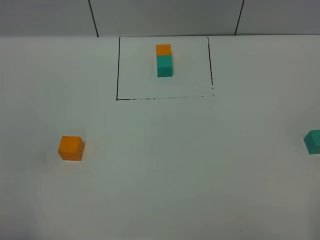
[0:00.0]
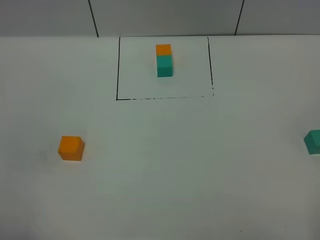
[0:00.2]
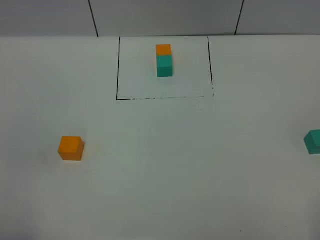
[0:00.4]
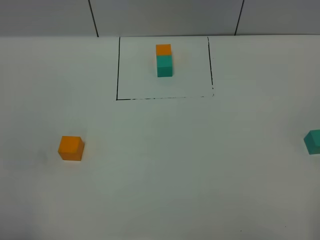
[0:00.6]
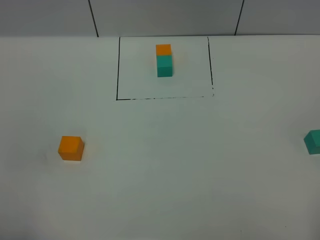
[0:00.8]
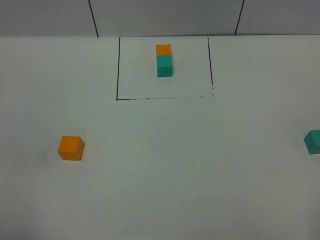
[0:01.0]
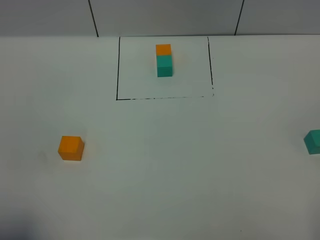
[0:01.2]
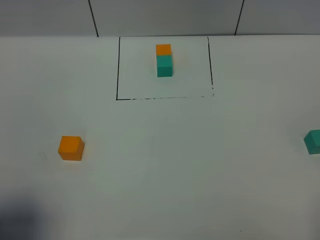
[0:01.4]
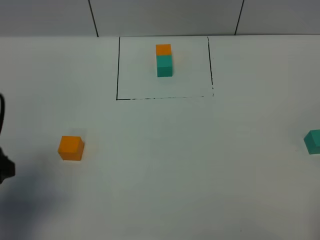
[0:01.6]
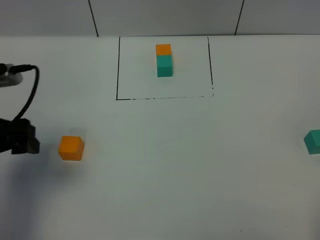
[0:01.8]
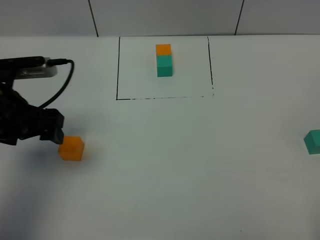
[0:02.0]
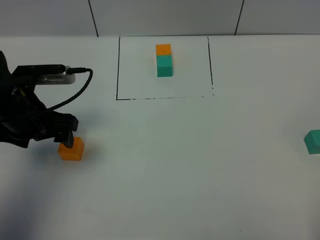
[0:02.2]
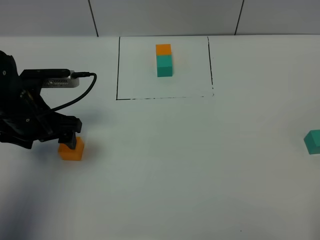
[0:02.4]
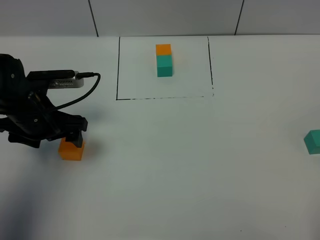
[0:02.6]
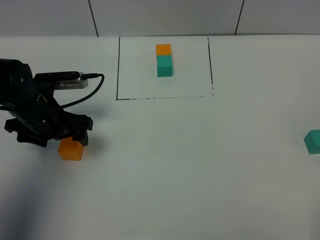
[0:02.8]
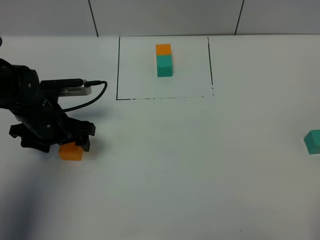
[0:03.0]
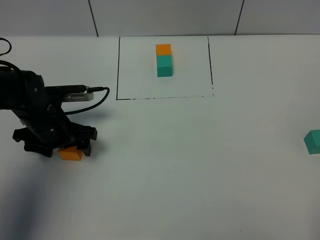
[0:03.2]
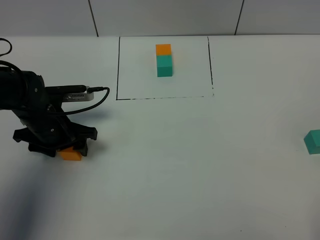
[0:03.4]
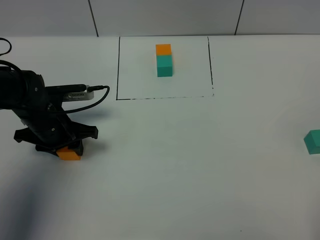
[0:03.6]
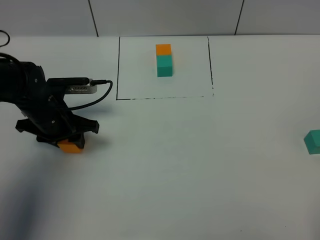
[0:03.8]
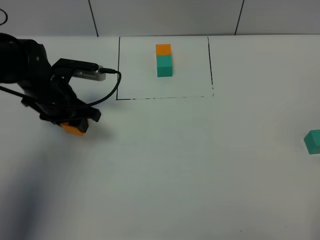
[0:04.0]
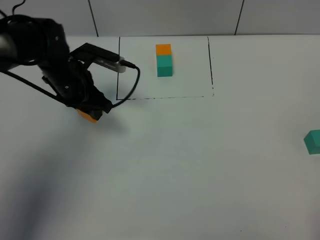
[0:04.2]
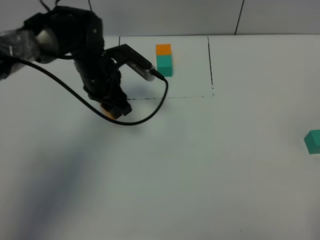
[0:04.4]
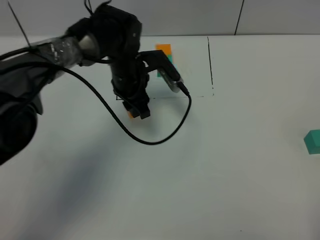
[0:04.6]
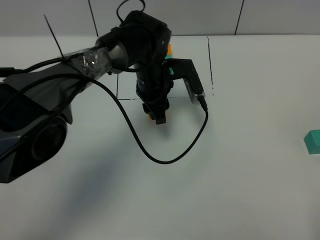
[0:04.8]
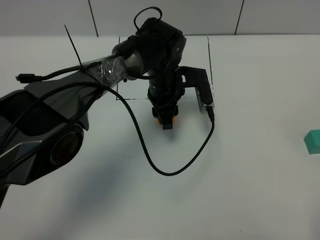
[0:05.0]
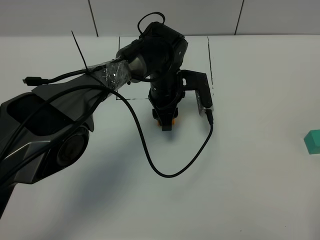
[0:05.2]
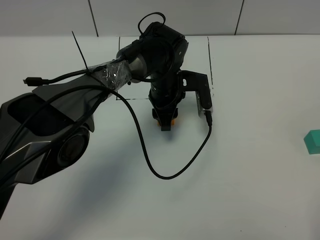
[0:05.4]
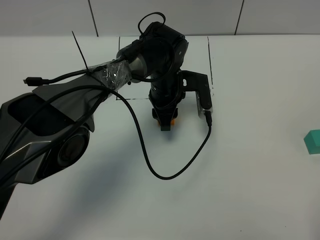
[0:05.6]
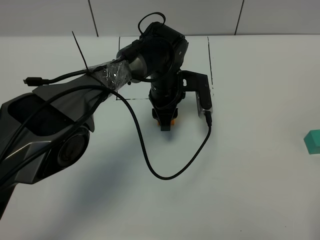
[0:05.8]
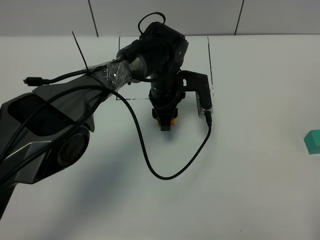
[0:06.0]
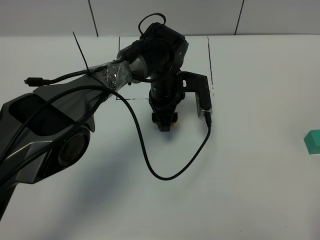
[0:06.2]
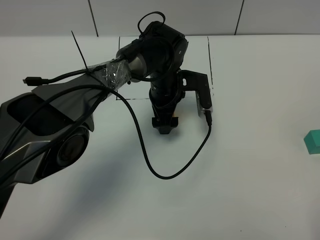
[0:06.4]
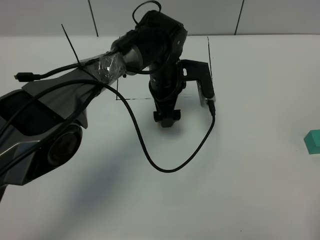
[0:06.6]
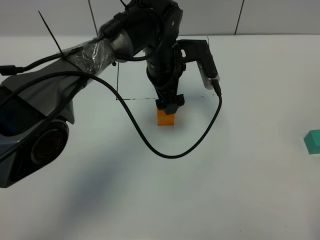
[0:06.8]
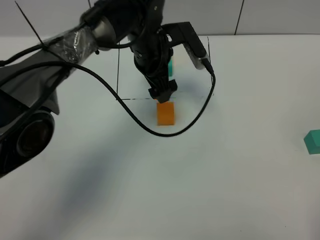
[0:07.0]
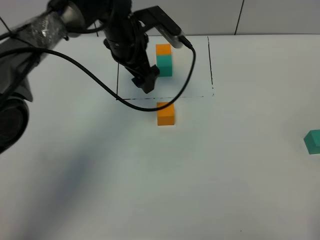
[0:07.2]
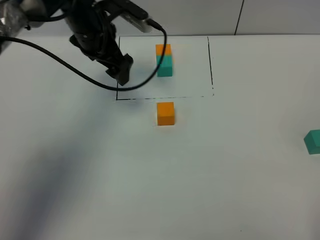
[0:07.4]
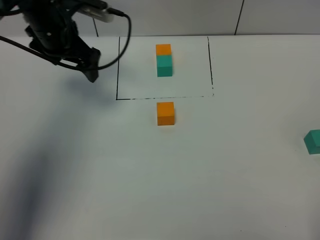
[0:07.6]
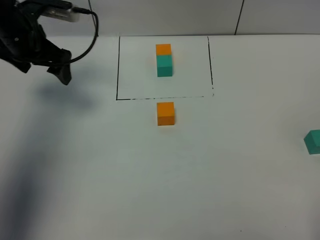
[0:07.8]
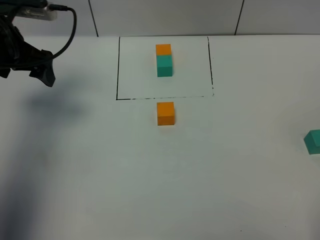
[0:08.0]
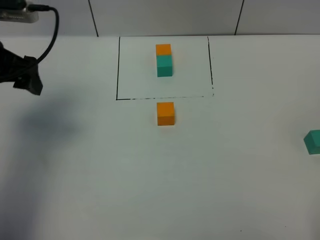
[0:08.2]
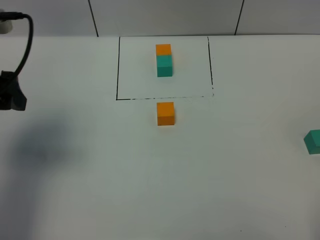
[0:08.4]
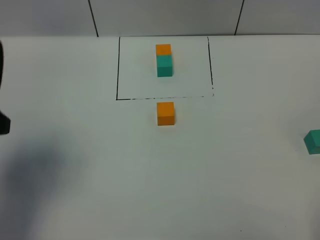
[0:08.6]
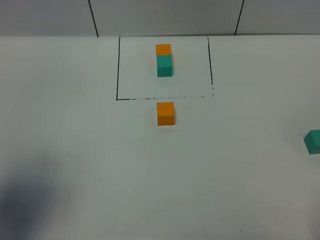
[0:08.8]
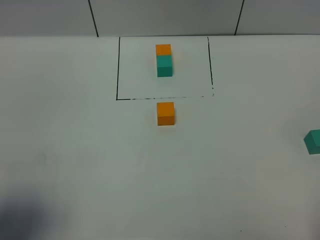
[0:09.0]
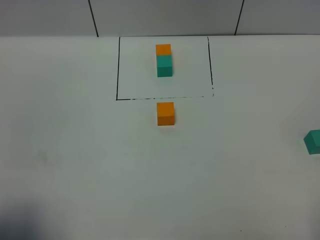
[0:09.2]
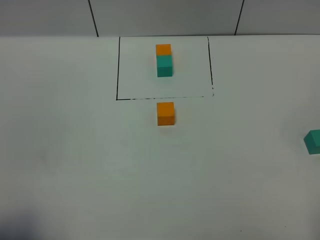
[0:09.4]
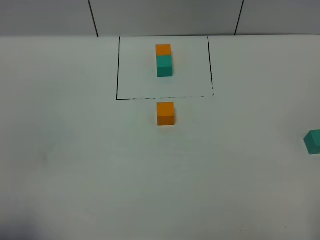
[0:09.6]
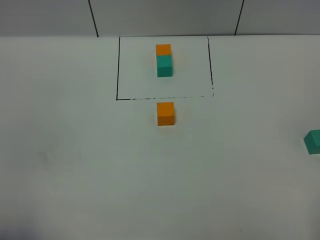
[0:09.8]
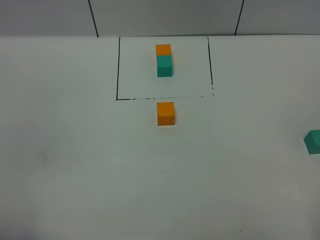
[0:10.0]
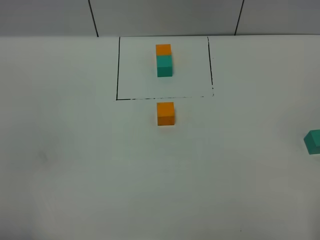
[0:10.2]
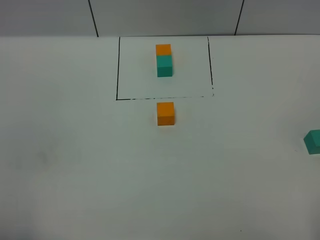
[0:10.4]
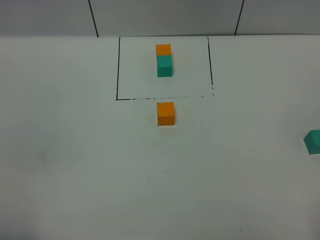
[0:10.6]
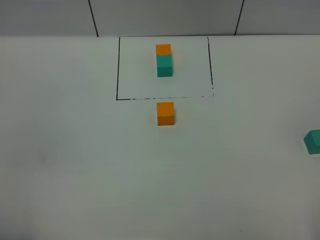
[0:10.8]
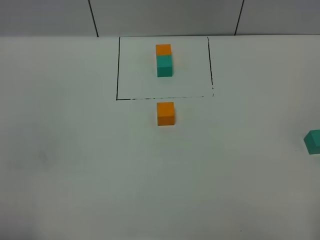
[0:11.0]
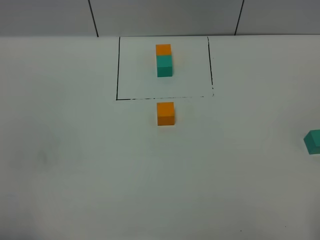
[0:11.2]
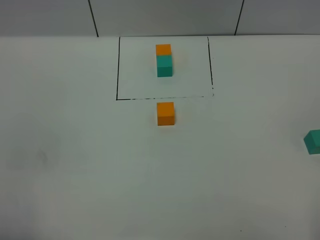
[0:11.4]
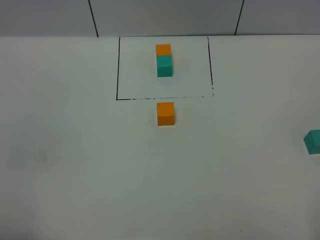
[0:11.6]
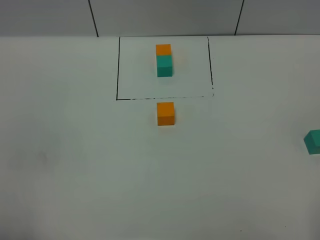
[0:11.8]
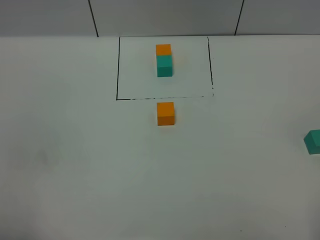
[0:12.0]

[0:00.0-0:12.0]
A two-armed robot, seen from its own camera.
Task of the whole recording: According to the building block template in front, assemble the scattered blocks together.
Step, 0:01.6 to 0:06.4: Put the orange cube in the center of the table.
0:00.0 to 0:01.6: The left gripper shifts approximately 15 cm forward.
0:01.6 to 0:03.0: The left gripper is displaced forward, downward and to the right by roughly 20 cm.
0:03.0 to 0:04.4: The left gripper heads to the right and forward, covering some 15 cm, and closes.
0:04.4 to 0:06.0: The left gripper travels to the right by approximately 10 cm.
0:06.0 to 0:07.6: The left gripper goes some 25 cm to the left and upward, and opens its fingers.
0:07.6 to 0:09.0: The left gripper travels backward by some 35 cm.
0:09.0 to 0:10.4: The left gripper shifts some 10 cm backward.
0:10.4 to 0:12.0: Both grippers stay about where they are.

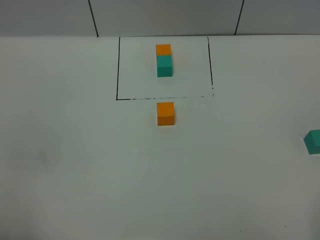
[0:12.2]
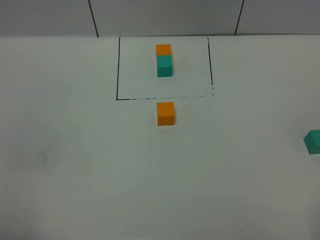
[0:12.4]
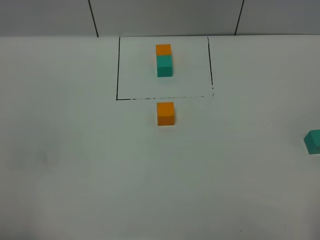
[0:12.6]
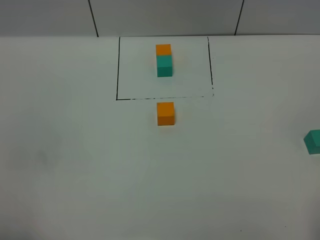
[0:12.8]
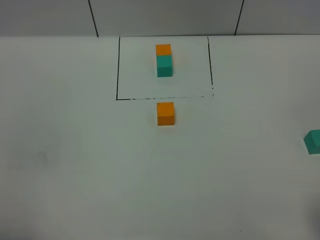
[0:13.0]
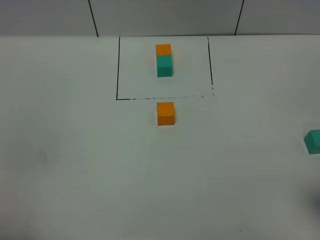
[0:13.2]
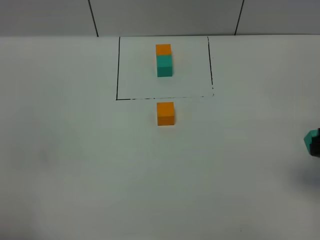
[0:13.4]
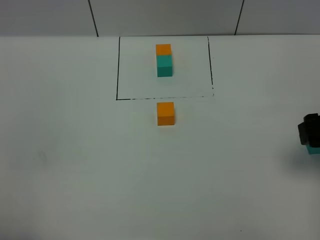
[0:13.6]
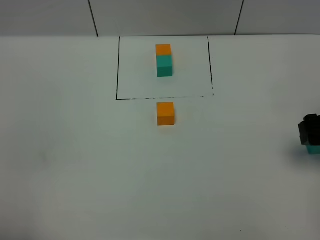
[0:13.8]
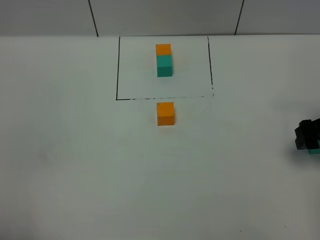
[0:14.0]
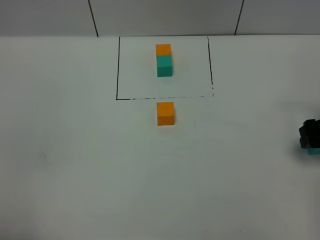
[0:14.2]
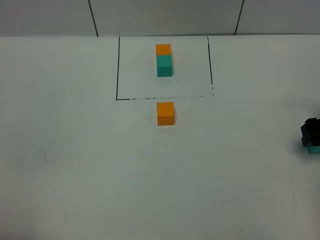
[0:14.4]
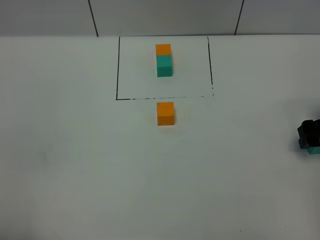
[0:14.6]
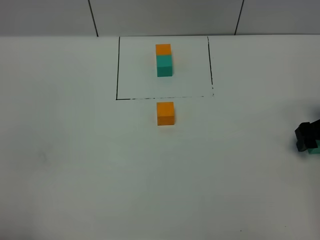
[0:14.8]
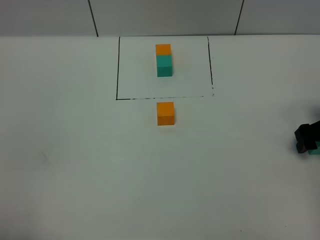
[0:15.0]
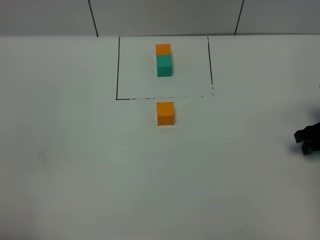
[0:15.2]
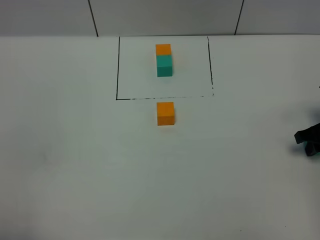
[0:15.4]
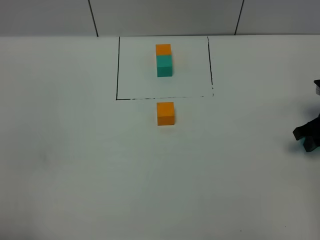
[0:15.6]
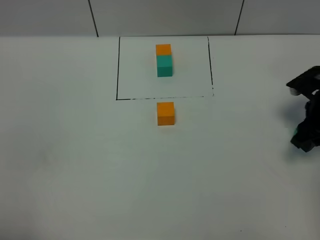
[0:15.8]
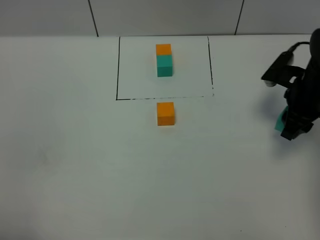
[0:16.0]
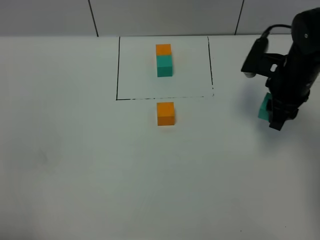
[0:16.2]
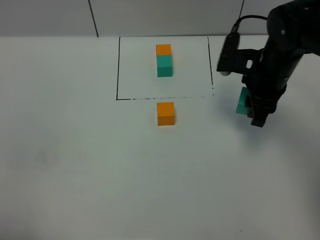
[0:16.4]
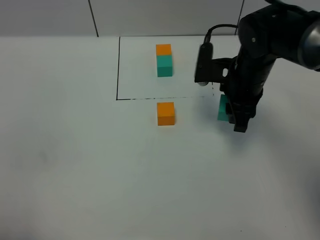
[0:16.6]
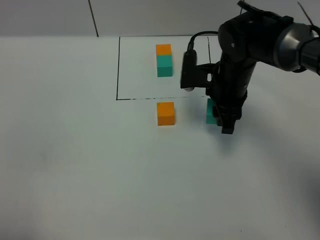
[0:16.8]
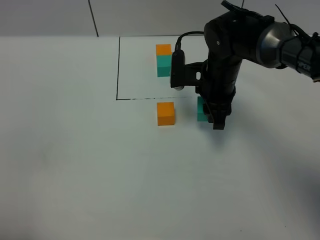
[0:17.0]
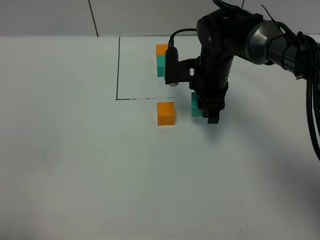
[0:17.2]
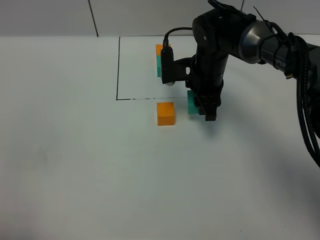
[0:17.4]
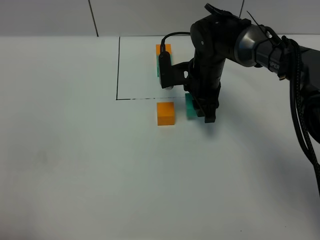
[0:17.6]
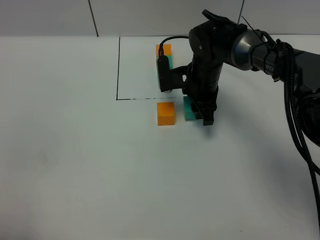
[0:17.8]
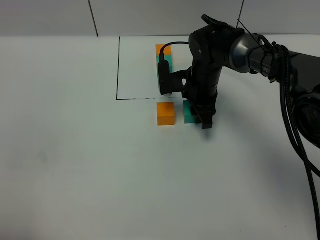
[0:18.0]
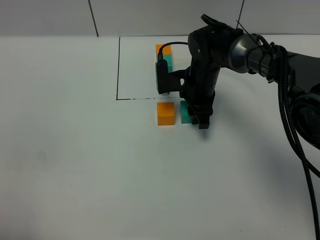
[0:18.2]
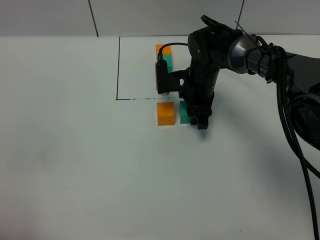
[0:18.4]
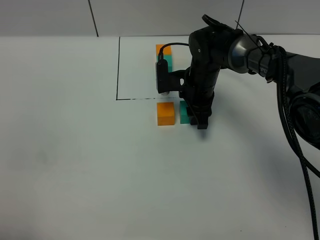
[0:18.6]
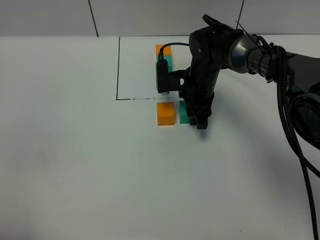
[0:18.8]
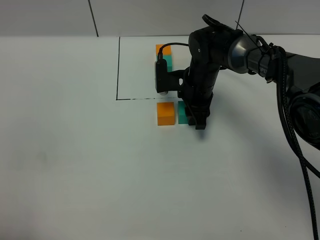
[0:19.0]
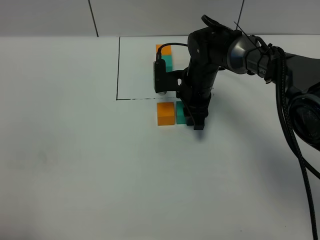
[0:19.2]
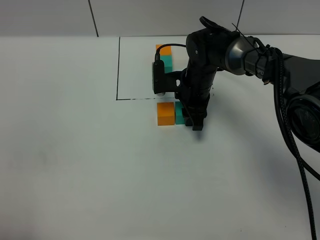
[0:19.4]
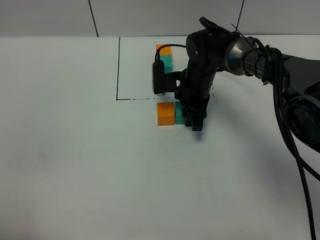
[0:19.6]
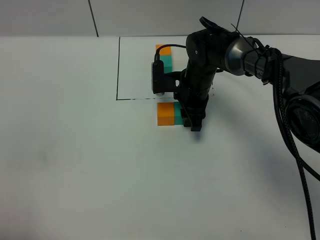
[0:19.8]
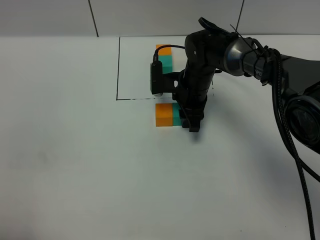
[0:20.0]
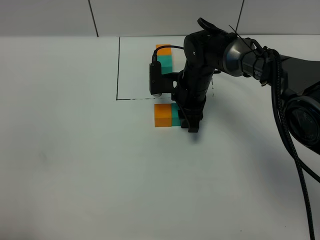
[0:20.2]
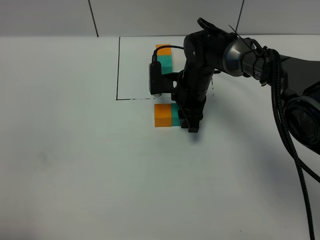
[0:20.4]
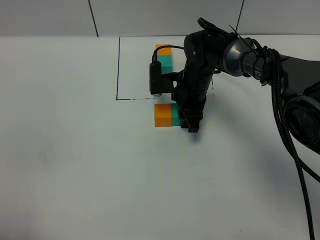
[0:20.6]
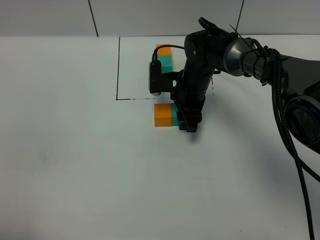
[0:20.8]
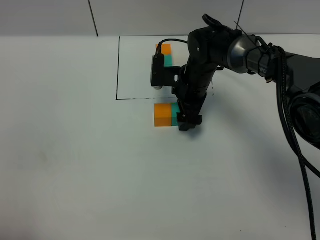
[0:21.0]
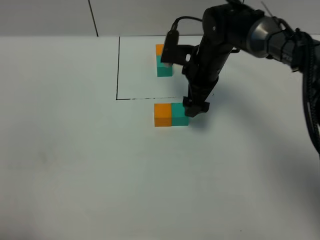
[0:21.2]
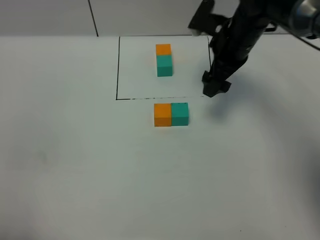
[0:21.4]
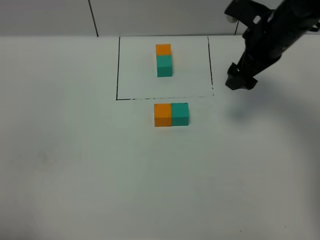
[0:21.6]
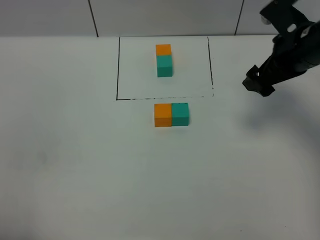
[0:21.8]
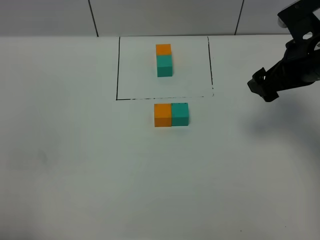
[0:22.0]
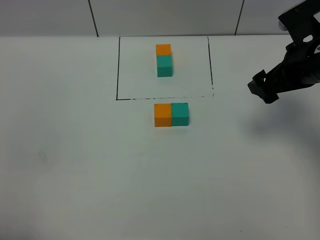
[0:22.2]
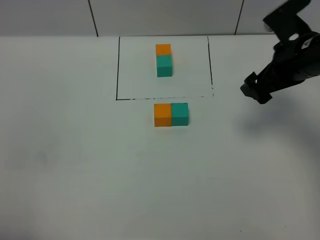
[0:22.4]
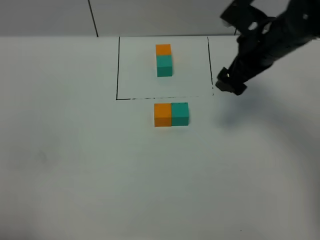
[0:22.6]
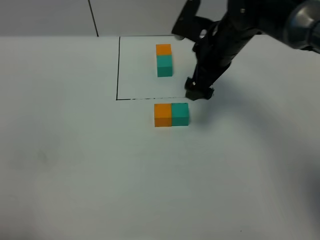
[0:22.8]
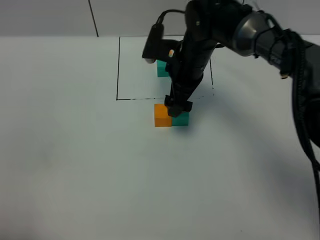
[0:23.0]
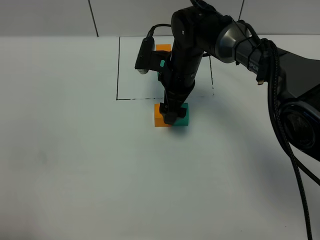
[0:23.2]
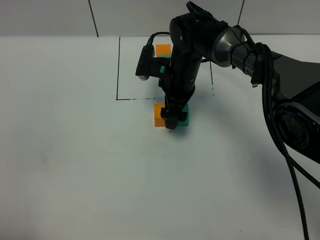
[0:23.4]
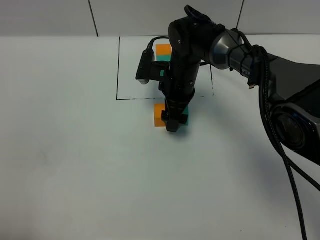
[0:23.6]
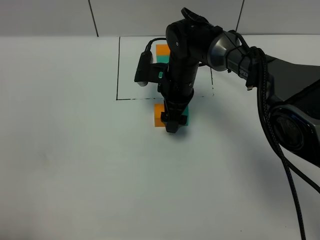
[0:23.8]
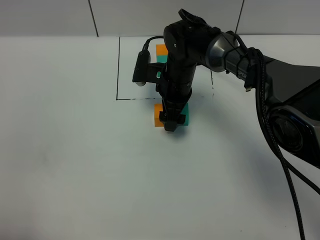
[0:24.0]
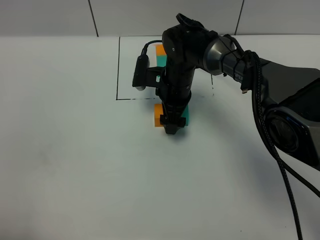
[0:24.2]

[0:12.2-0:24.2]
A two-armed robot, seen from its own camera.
Task of the whole recording: According to the building block template in front, assemble the scattered blocks together.
Step, 0:12.2 to 0:21.0: Put the green cube on the right of the orange cube.
0:12.2 to 0:13.8: The right gripper heads forward, covering approximately 25 cm.
0:13.8 to 0:15.2: The right gripper heads downward, covering some 10 cm, and closes.
0:15.2 to 0:16.6: The right gripper moves to the left and upward, approximately 20 cm.
0:16.6 to 0:18.2: The right gripper moves downward, to the left and forward, some 10 cm.
0:18.2 to 0:19.8: There are only small adjustments of the grippers.
0:19.8 to 0:21.2: The right gripper travels upward by about 5 cm, and opens up.
0:21.2 to 0:22.6: The right gripper heads upward and to the right, covering roughly 10 cm.
0:22.6 to 0:24.2: The right gripper goes approximately 20 cm to the left and downward.
